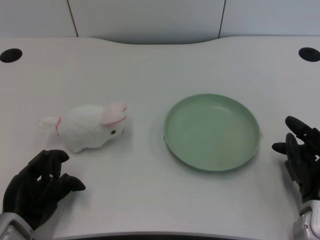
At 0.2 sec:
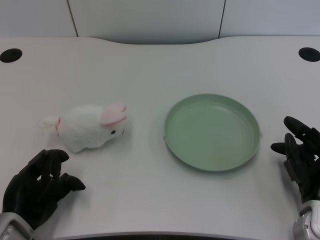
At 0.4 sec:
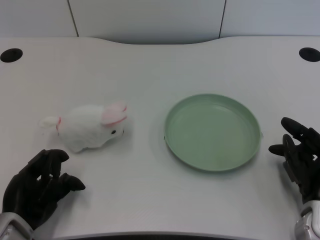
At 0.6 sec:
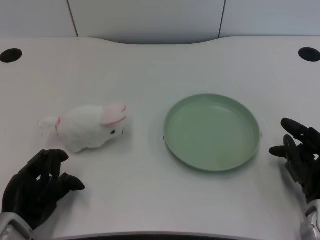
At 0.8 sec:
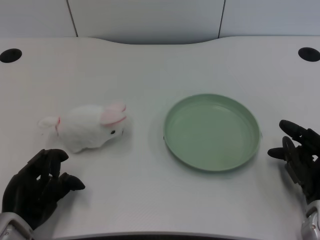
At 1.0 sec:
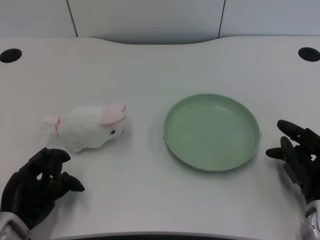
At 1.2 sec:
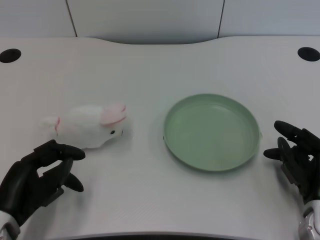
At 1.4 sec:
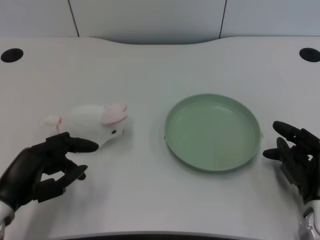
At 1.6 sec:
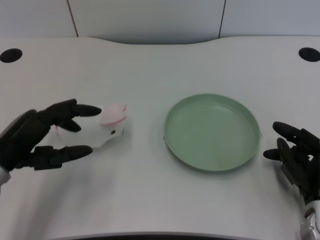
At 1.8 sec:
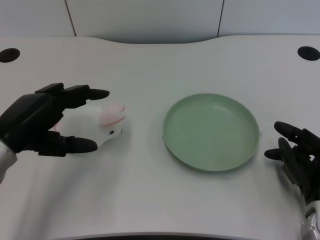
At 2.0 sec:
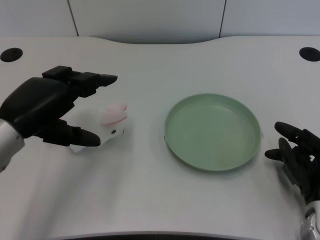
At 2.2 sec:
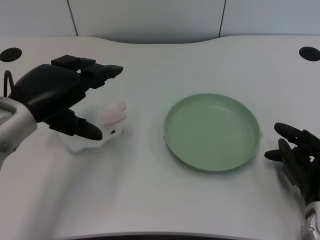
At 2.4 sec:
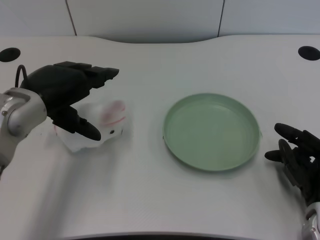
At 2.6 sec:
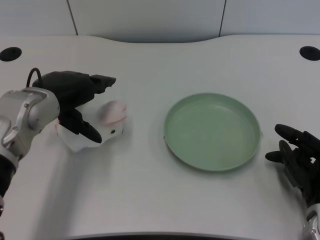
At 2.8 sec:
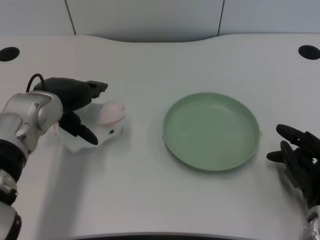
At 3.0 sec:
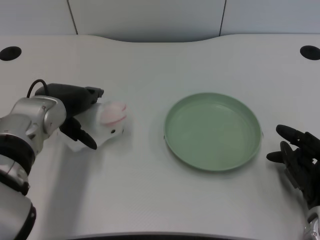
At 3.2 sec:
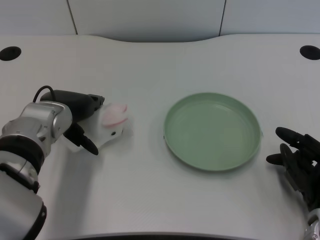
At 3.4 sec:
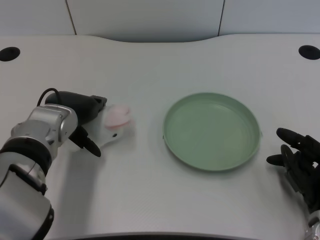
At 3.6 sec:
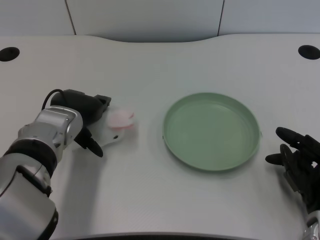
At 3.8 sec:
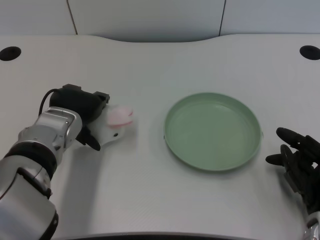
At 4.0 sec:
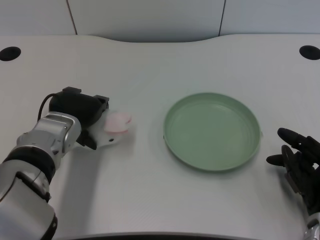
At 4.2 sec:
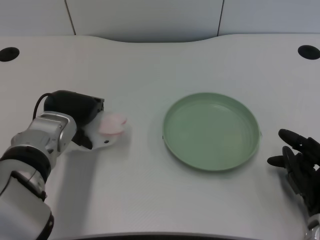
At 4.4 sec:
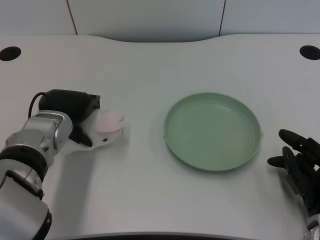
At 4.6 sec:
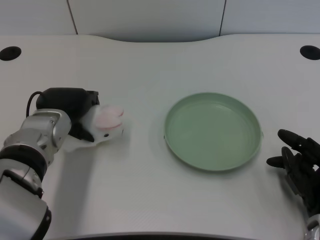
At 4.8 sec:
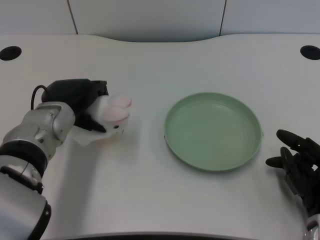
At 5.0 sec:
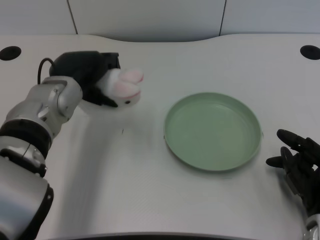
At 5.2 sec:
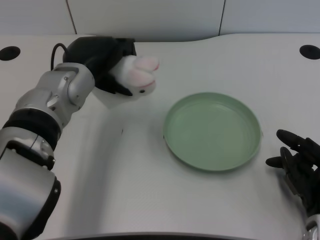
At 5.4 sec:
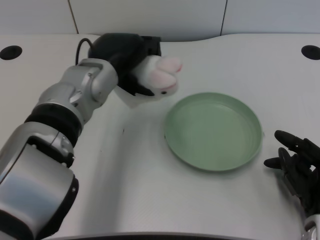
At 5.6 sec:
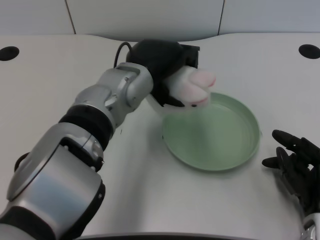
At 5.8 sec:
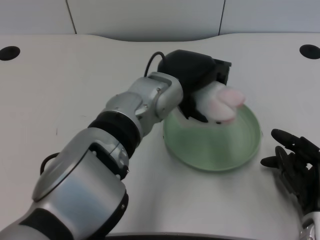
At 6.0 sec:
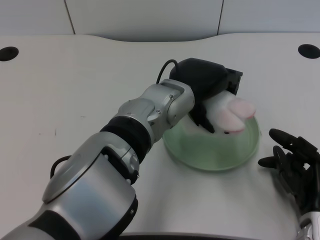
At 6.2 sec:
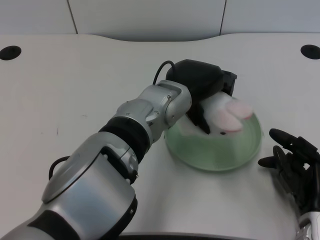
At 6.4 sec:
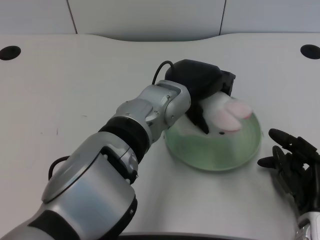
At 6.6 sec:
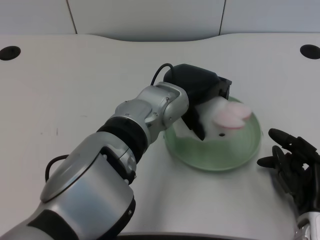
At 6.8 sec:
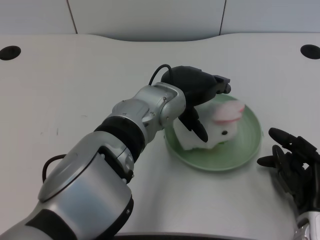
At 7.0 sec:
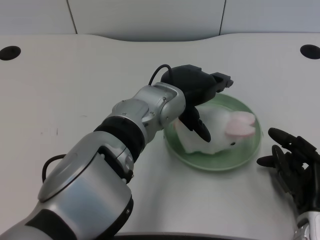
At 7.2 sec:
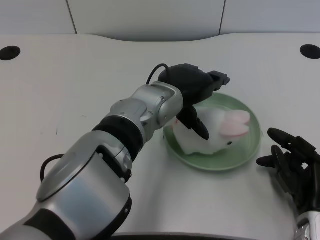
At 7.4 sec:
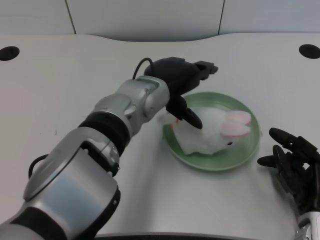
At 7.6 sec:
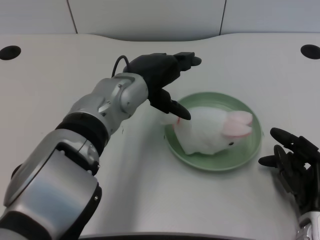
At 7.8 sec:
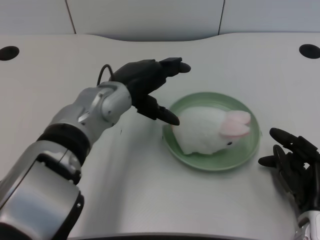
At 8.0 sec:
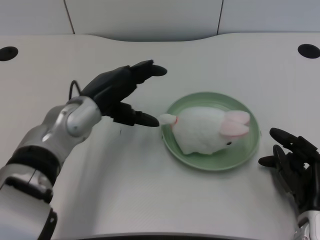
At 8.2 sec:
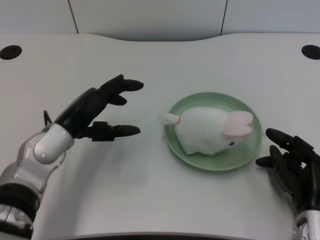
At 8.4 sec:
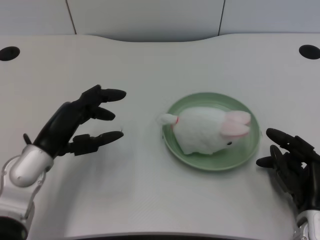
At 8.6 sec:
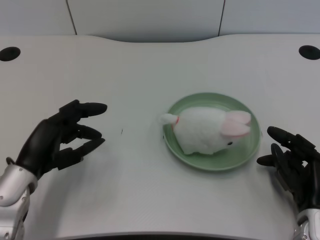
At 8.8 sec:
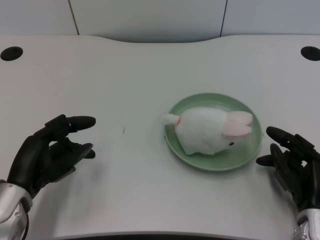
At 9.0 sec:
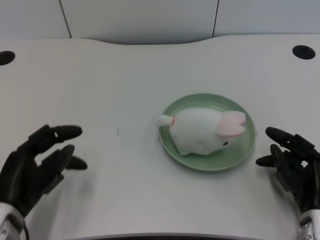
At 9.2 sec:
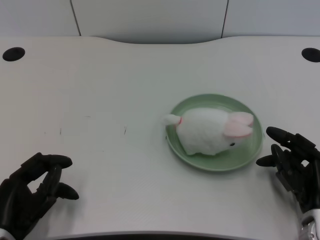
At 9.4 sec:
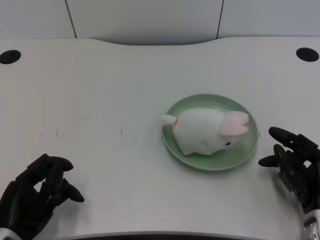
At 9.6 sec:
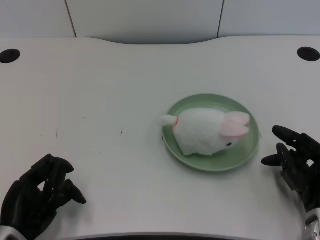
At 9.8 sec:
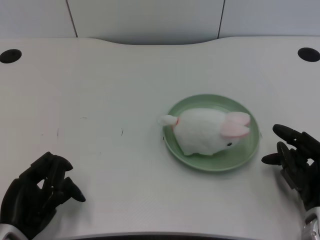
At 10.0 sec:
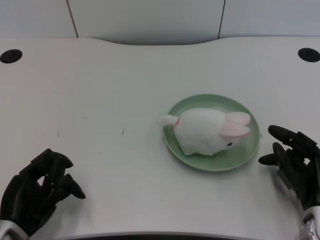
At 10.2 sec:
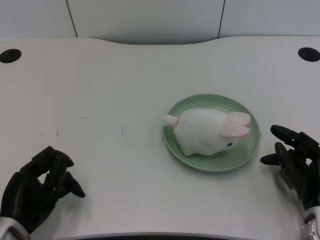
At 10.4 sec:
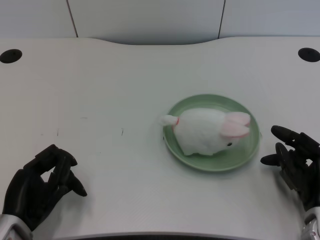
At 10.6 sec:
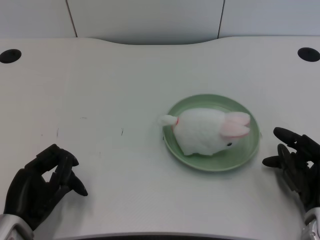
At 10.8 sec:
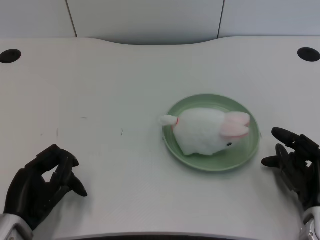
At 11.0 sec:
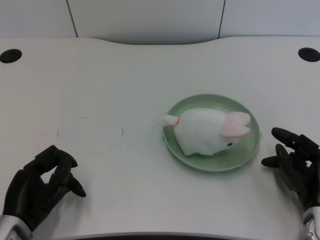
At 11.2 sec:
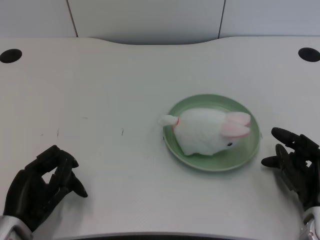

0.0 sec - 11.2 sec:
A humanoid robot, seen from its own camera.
Task of the whole recording: pick up the rabbit doll from the table and place it on the plate.
Step, 1.2 sec - 4.6 sec: Grasp the rabbit doll with the left gripper.
Step, 5.0 sec - 7.0 sec: Place the rabbit doll into the plate with the left gripper.
1.6 sec - 3.2 sec: The left hand goes approximately 15 cm forward and to the right.
4.8 sec - 6.4 sec: The left hand shifts some 15 cm to the right.
6.4 sec - 8.0 sec: The left hand is displaced to the left by approximately 15 cm.
8.0 sec - 9.6 sec: The left hand goes about 20 cm backward, to the left and downward.
9.6 sec - 11.2 sec: The hands make only small movements.
